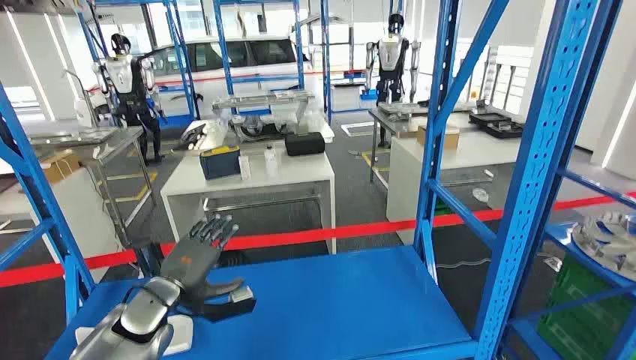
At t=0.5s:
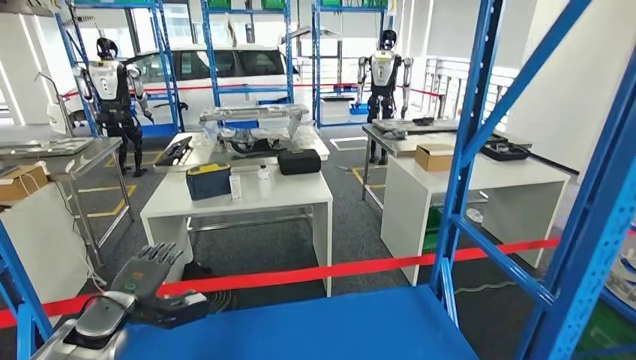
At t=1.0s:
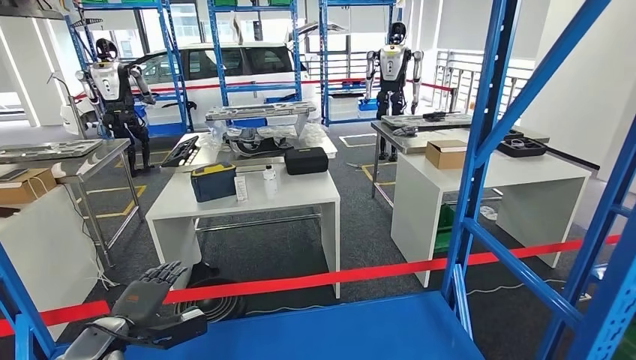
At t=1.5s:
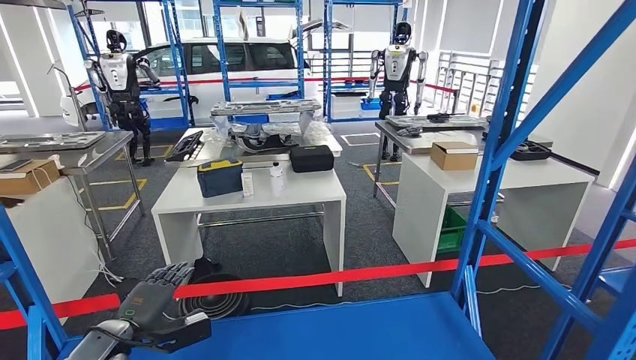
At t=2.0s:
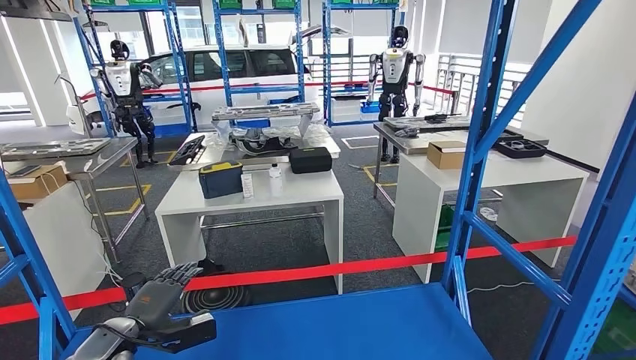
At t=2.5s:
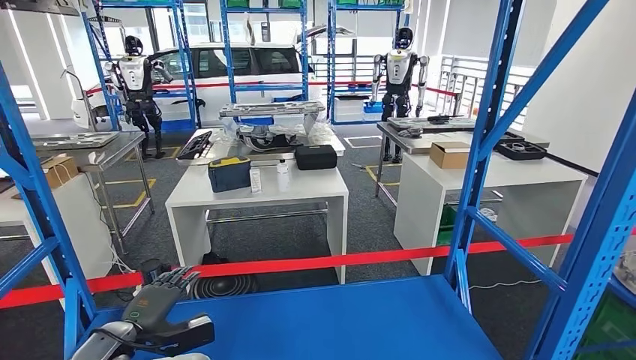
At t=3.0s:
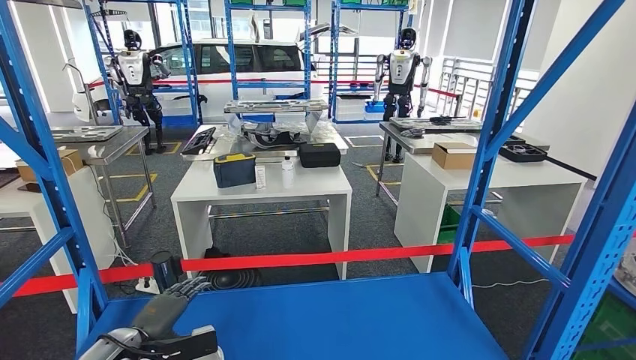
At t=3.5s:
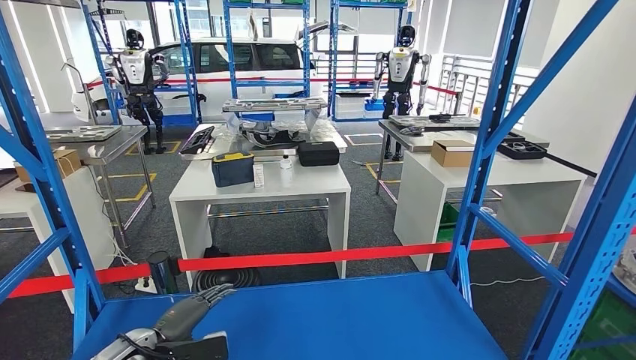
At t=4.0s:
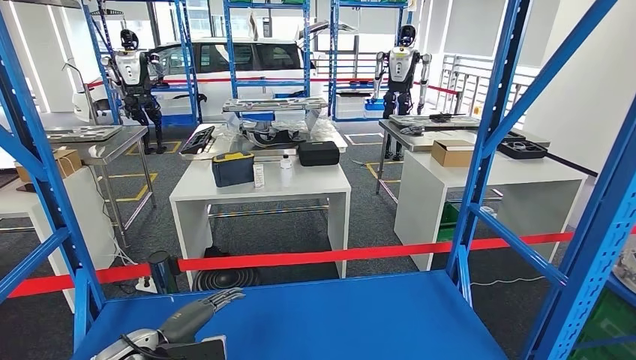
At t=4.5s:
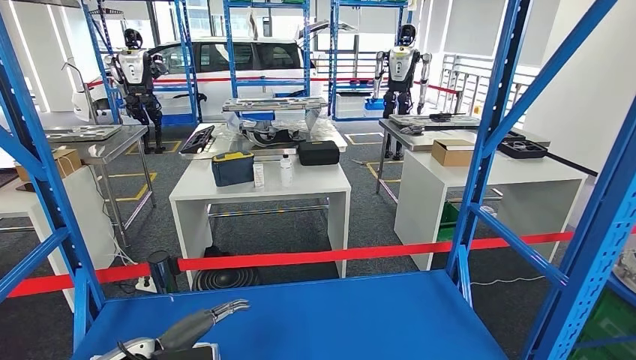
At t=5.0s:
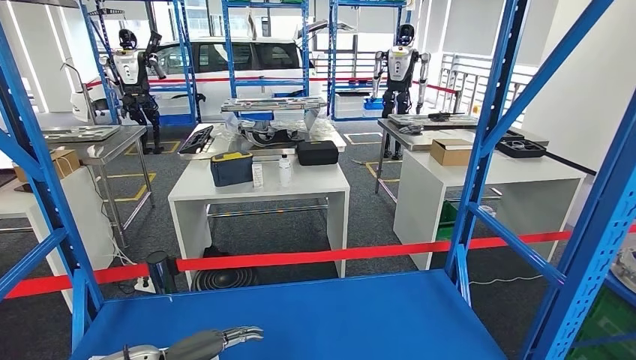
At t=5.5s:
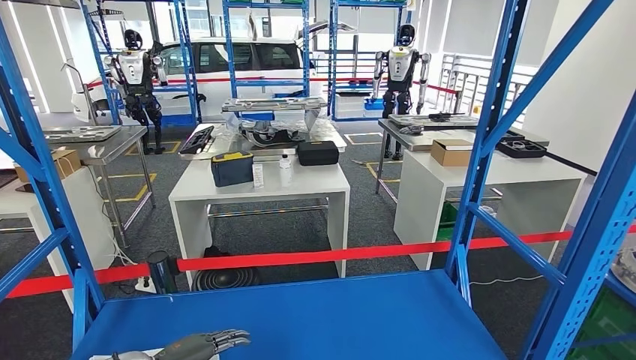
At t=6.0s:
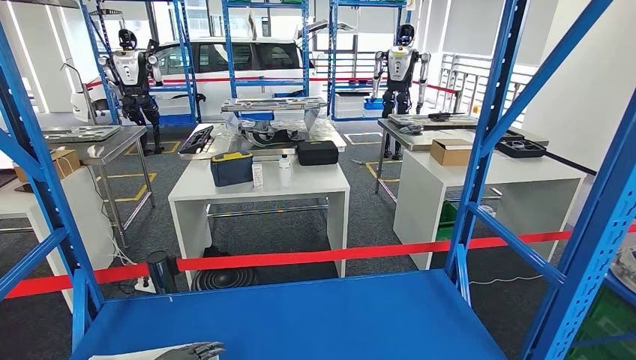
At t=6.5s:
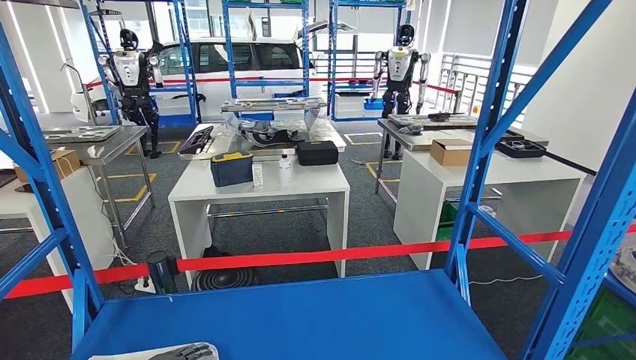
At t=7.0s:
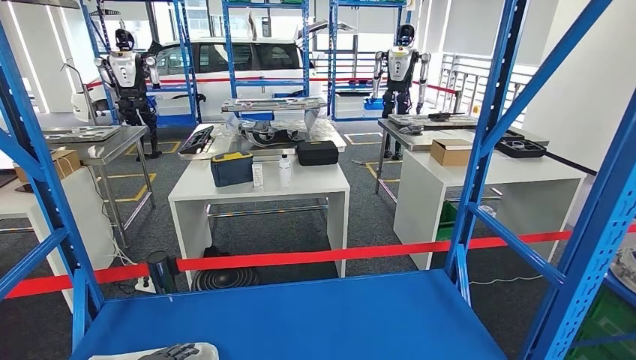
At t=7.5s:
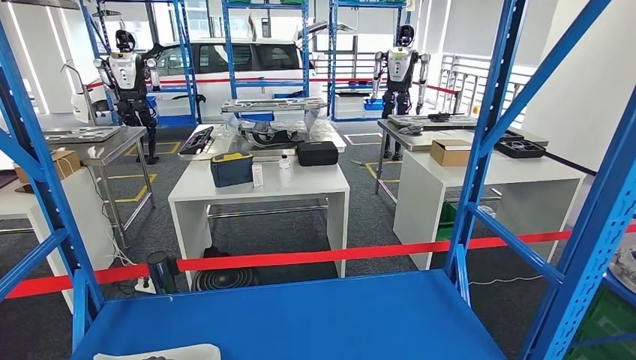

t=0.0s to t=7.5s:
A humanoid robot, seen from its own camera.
Step, t=0.0s to t=7.5s: Take small components from the rack.
t=4.0s to t=5.5s: The hands move only a little.
t=5.5s to t=7.5s: The left hand is displaced downward and to the left by some 10 cm.
